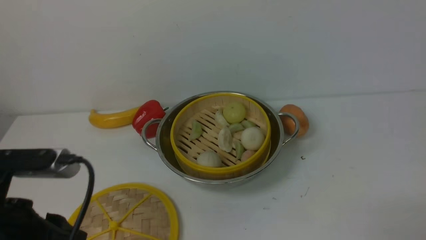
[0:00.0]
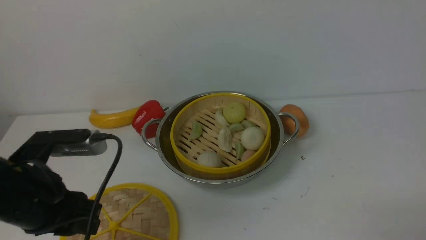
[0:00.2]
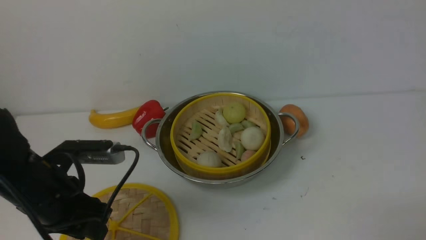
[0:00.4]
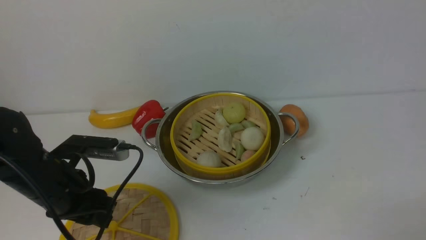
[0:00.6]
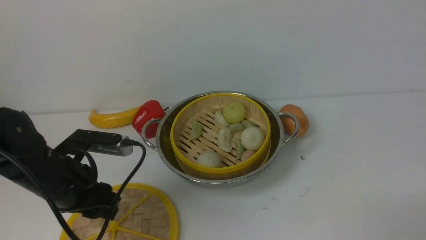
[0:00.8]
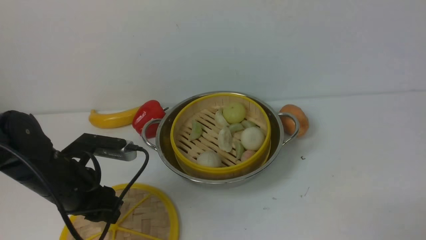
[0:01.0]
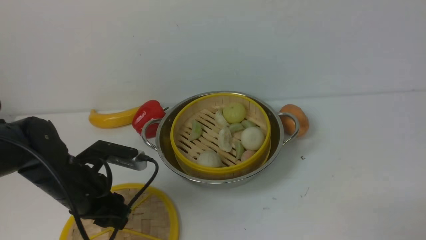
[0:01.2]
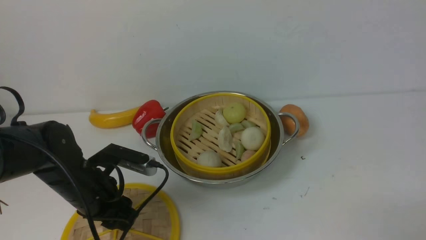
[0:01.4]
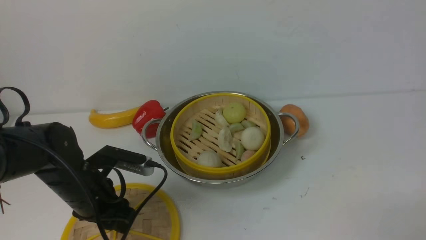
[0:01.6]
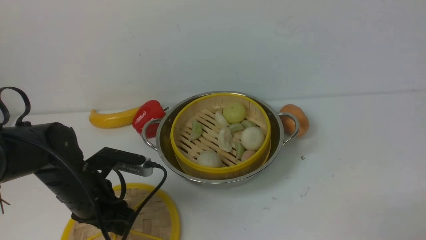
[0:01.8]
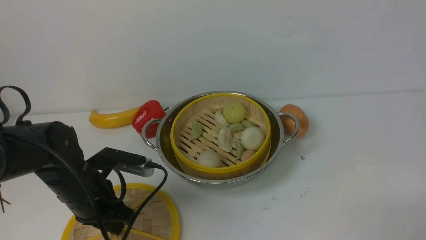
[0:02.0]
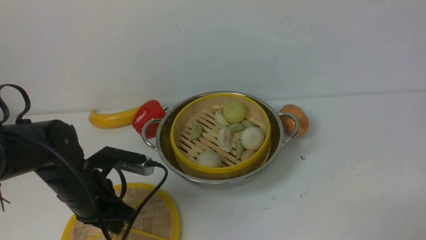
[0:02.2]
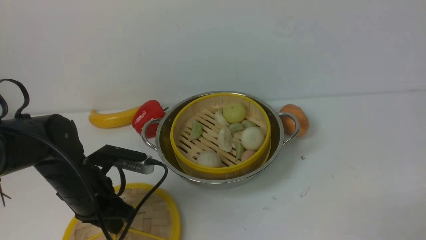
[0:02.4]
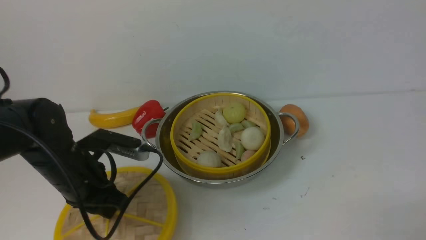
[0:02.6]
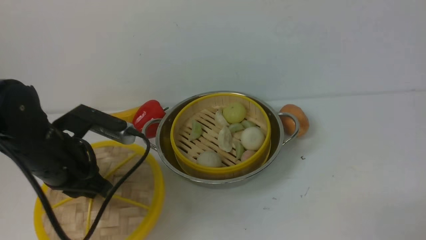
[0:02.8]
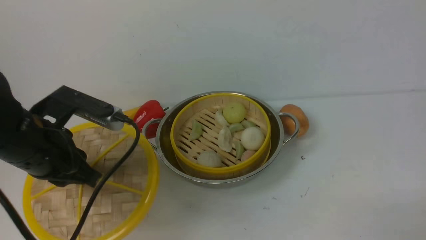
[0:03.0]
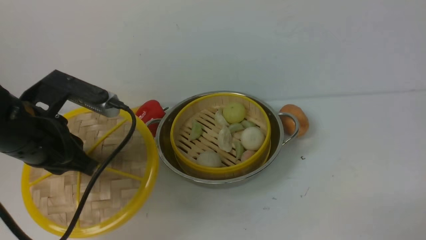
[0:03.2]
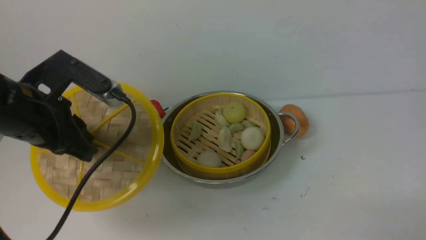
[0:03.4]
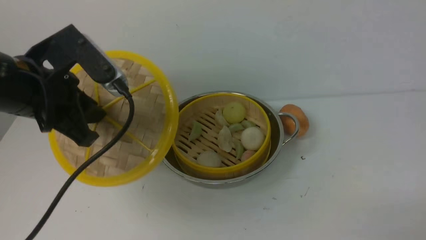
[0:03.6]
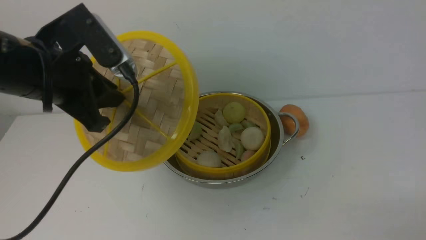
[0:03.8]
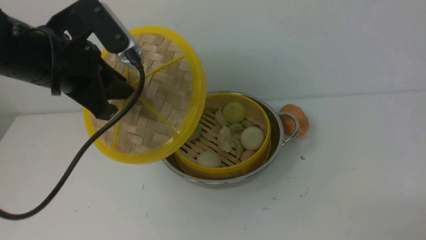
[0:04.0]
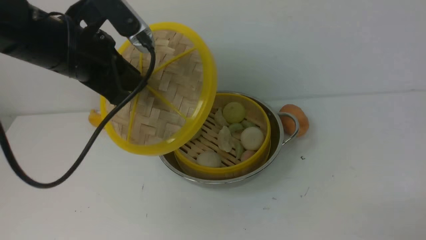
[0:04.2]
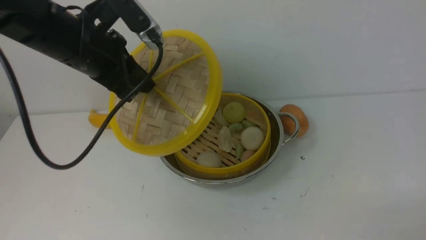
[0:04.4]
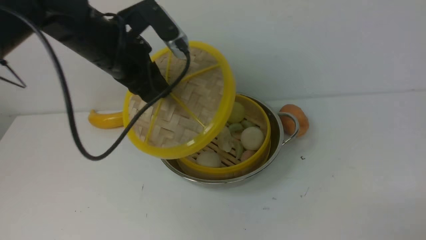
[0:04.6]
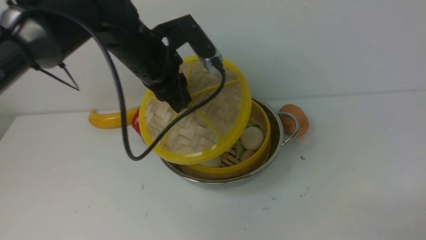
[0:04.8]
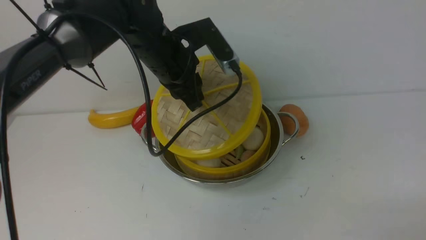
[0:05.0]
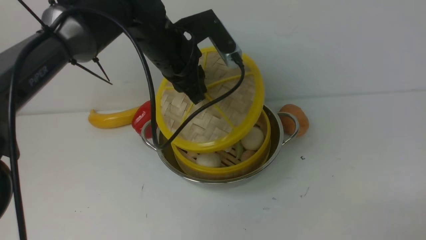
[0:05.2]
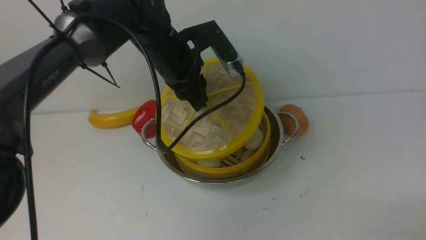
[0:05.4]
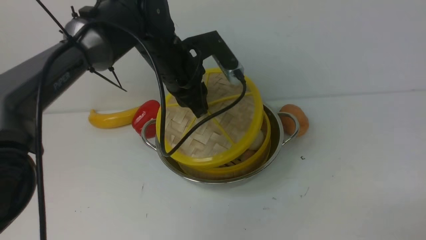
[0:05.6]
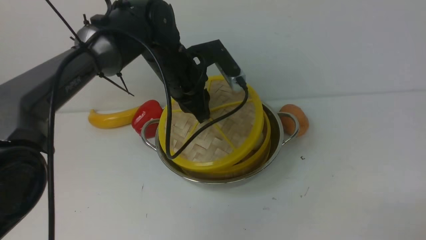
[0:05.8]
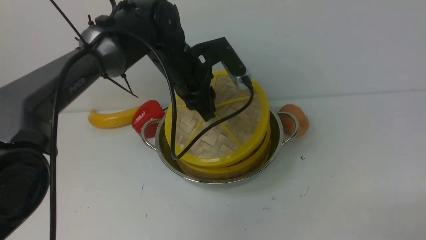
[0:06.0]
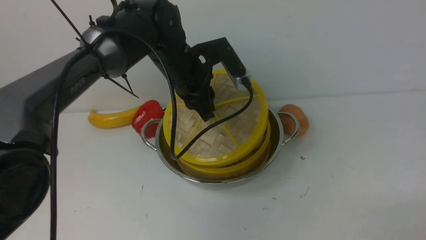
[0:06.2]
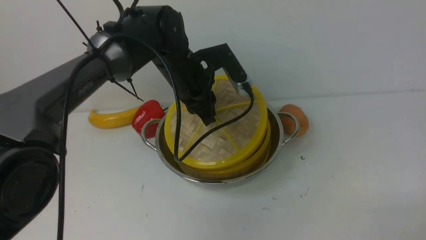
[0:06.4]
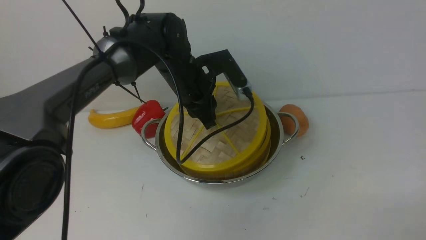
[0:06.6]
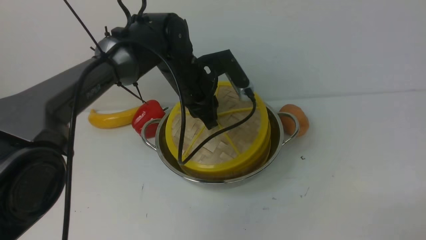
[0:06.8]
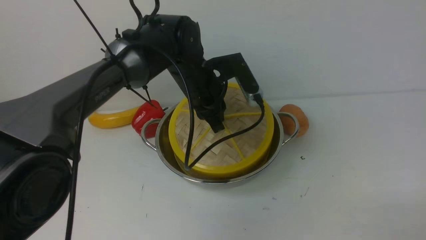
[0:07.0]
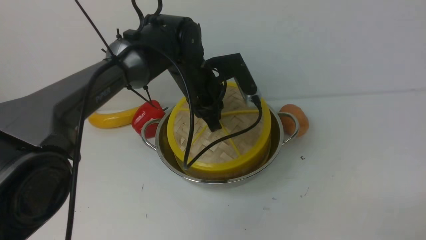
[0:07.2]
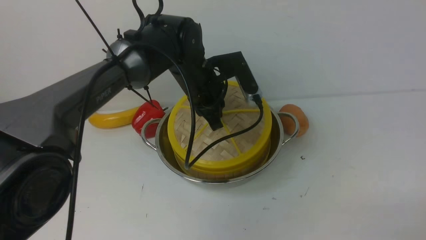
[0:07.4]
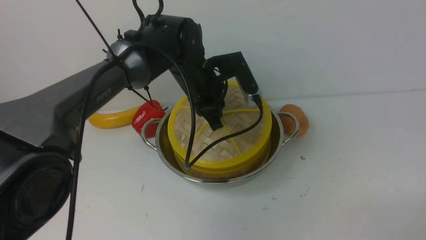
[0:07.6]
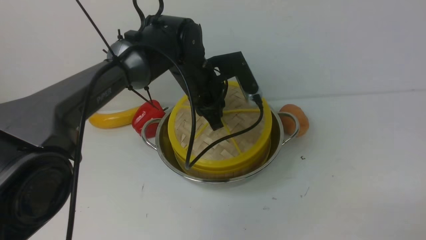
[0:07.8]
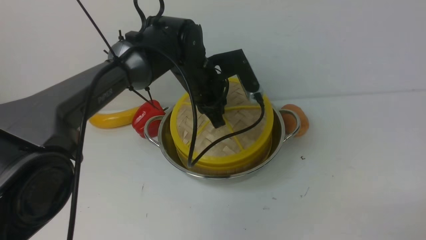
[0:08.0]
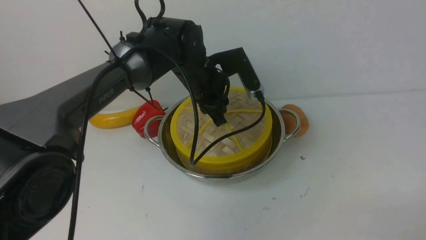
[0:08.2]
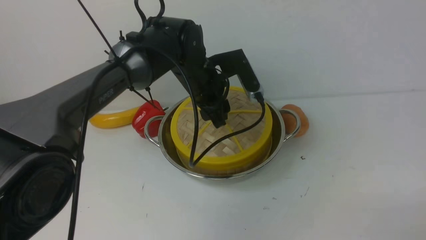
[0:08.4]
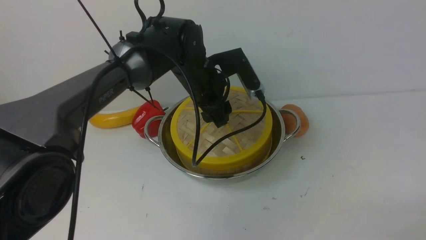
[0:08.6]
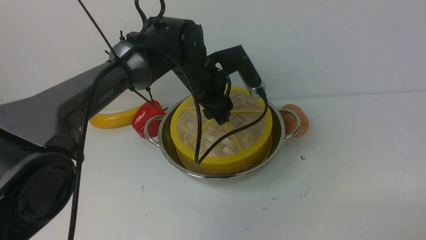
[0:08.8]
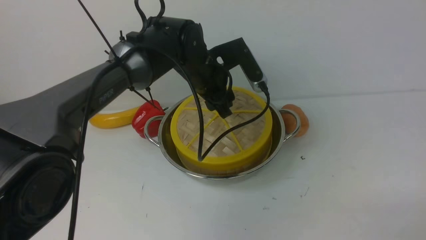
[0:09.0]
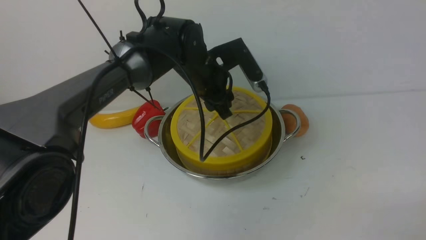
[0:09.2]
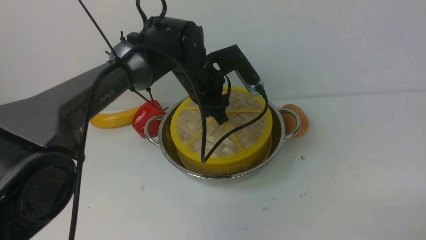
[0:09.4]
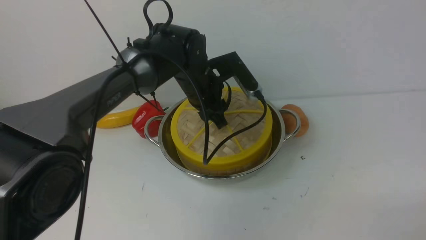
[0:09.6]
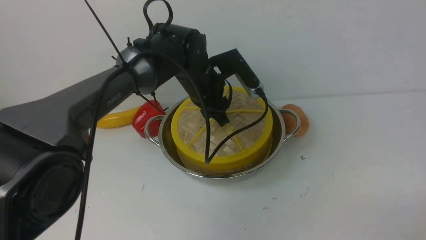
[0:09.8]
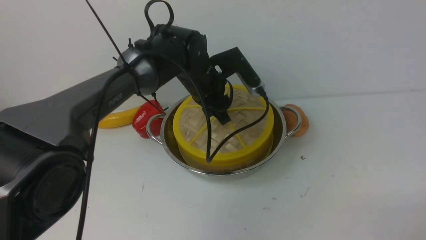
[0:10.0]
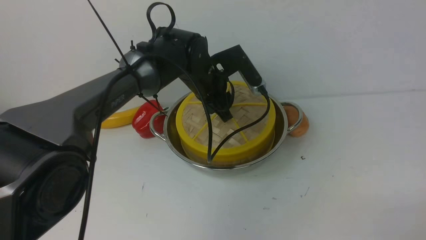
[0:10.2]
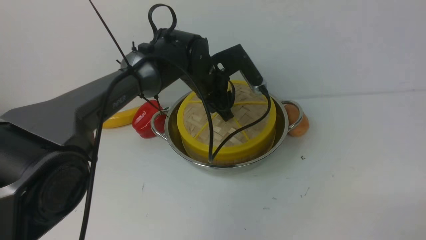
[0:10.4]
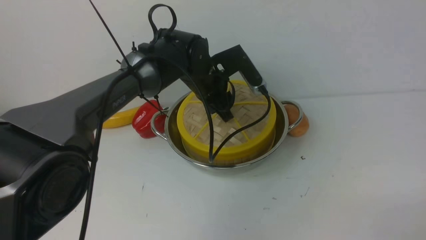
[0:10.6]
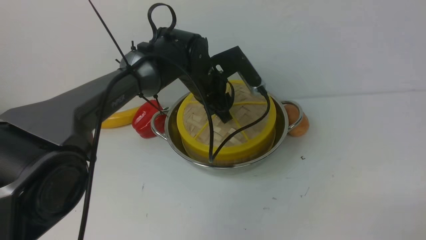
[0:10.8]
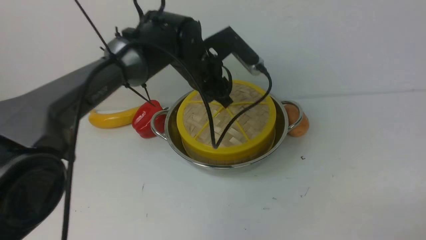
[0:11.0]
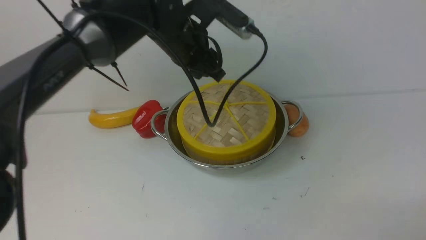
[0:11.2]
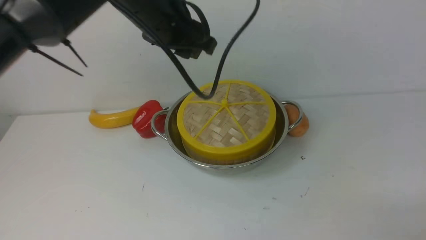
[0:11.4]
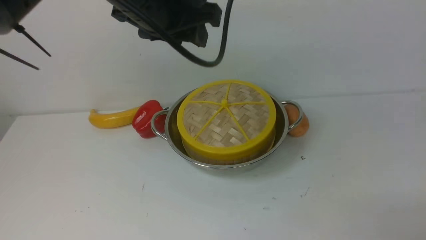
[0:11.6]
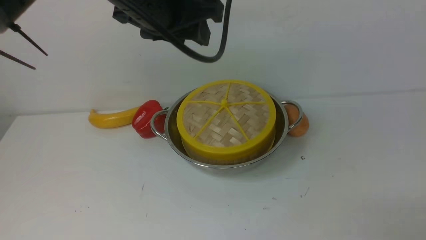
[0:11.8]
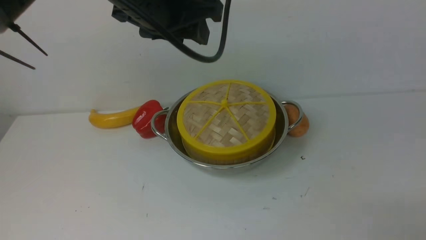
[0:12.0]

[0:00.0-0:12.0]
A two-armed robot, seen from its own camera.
Task of the whole recording: place the steamer in the pot on the white table, and put the lid on the steamer.
Step, 0:00.0 to 0:02.6: use the left arm to lift the lid of the steamer.
Step, 0:02.8 to 0:11.6: use the left arm to place the steamer lid on the steamer.
0:00.0 to 0:01.6: The left gripper goes roughly 20 cm forward and downward.
0:01.6 to 0:03.0: The left gripper is displaced upward by about 15 cm, and closes up.
0:03.0 to 0:04.4: The left gripper shifts some 15 cm forward, upward and to the right.
0:04.4 to 0:06.0: The left gripper moves to the right, downward and forward, roughly 15 cm.
0:06.0 to 0:07.6: The grippers make only small movements.
0:07.6 to 0:09.0: The left gripper opens.
0:09.0 to 0:10.4: There are only small adjustments of the grippers.
0:10.4 to 0:12.0: The left gripper moves upward and backward, some 20 cm.

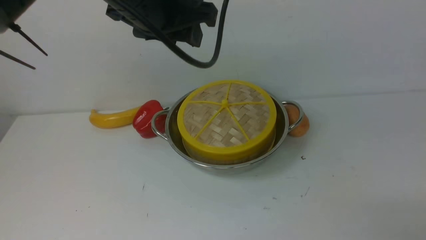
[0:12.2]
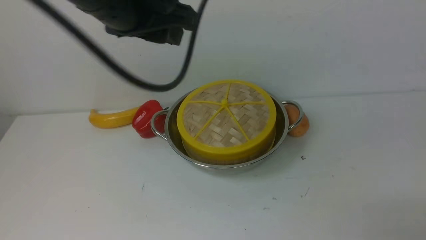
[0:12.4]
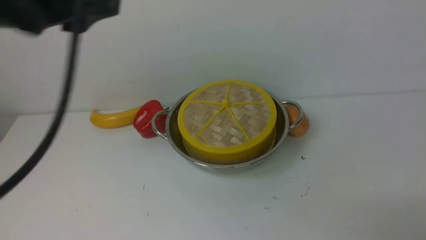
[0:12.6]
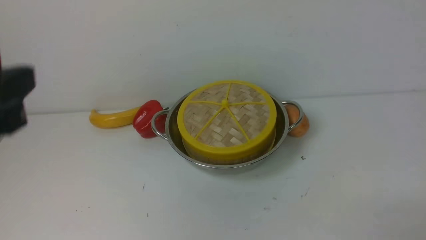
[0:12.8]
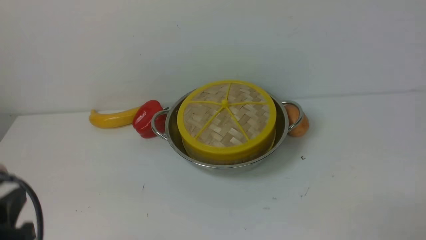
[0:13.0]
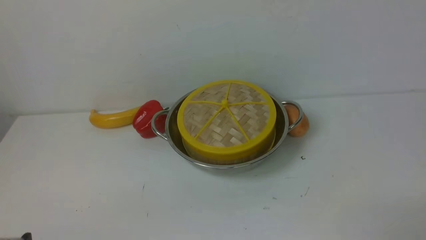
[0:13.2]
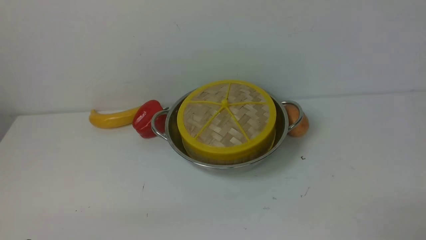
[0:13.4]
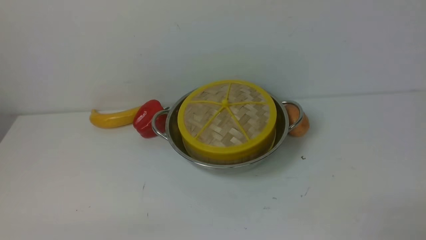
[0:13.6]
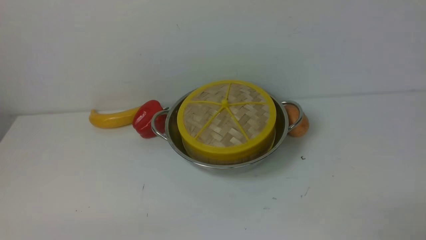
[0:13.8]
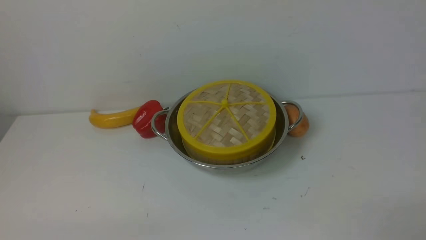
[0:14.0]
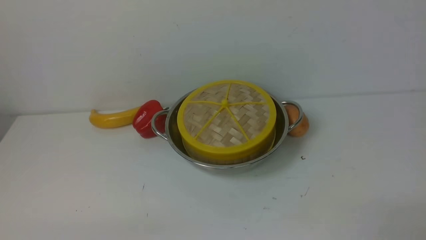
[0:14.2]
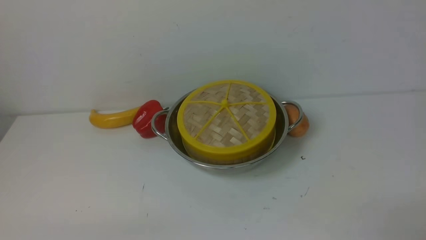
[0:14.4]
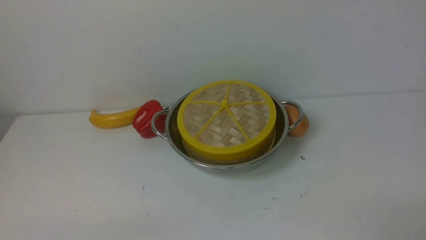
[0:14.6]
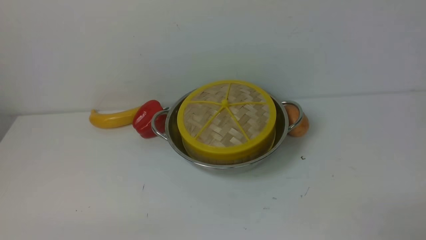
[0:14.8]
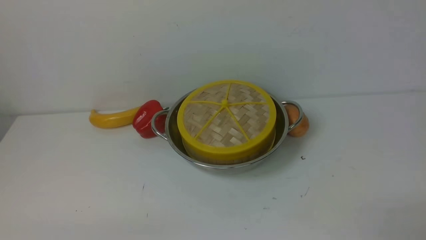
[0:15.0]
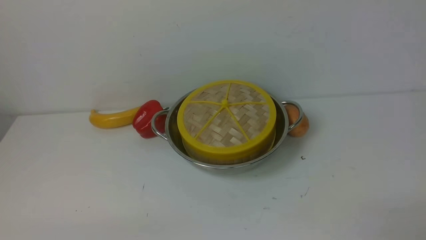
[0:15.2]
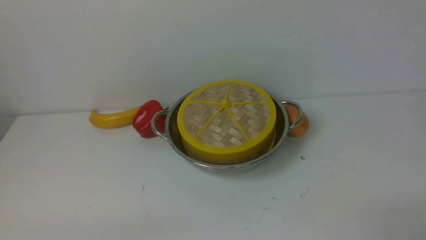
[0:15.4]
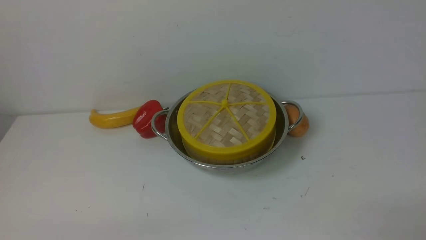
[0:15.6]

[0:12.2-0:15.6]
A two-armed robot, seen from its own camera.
Task of the whole recording: place the steamer in the pot on the white table, and put the lid on the steamer.
0:12.2 to 0:13.8: The left gripper goes some 40 cm backward, downward and to the left.
0:13.8 to 0:15.6: Both grippers stay put.

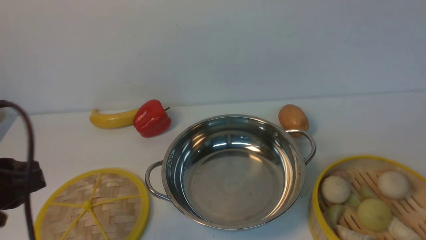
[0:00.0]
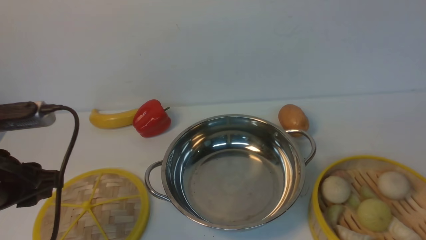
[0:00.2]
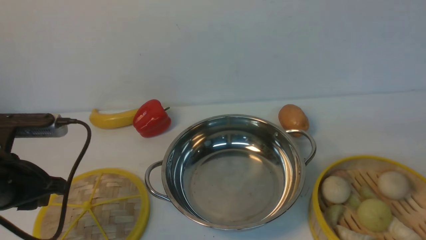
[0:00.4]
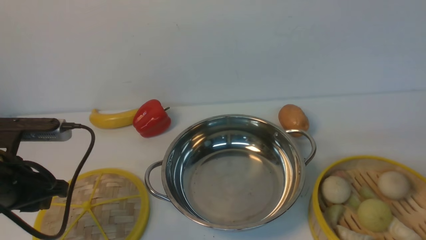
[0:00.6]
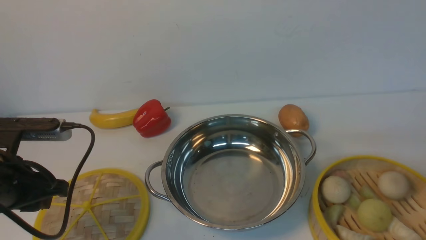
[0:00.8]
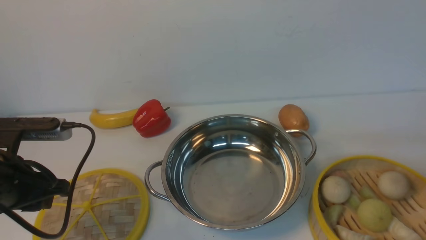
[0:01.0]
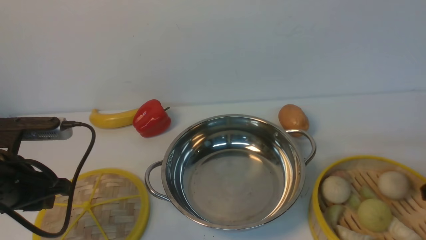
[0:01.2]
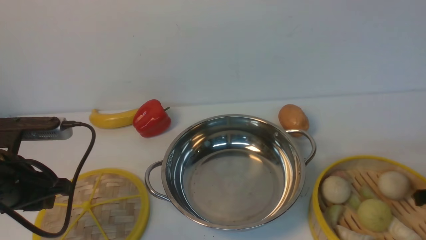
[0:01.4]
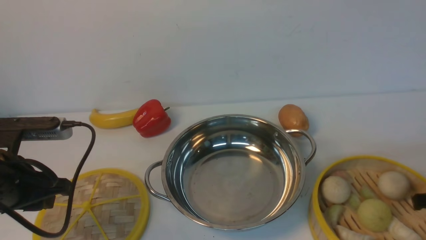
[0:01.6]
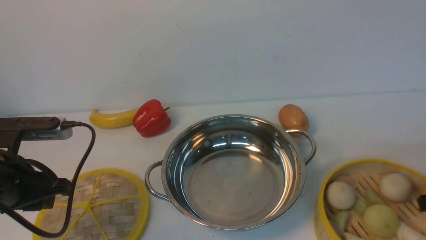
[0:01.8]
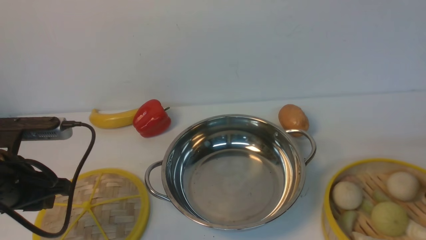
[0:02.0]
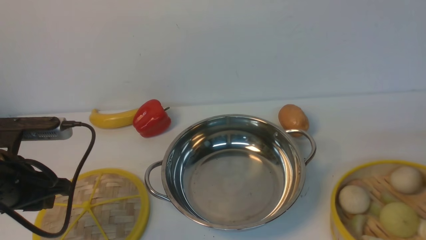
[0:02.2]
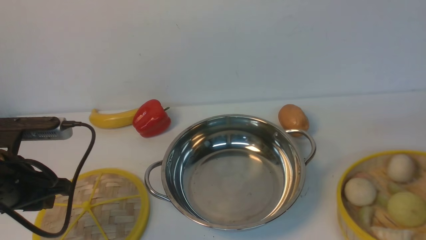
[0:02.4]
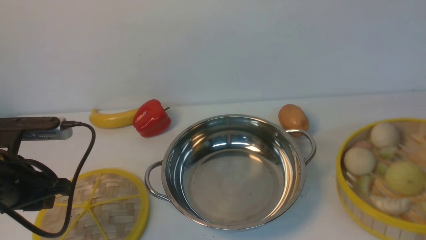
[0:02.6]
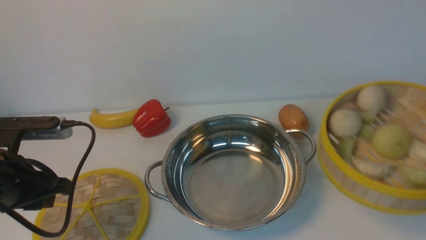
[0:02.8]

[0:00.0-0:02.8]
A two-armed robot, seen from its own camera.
Task of the whole recording: place the steamer in the pot on the white table, and put the lid on the steamer.
Step, 0:00.0 to 0:02.6: use the right arm to lift the steamer closest to it.
0:00.0 to 0:01.4: The left gripper moves forward and downward, some 10 cm.
0:01.4 to 0:02.8: The right gripper heads upward and forward, covering some 15 cm, and closes its fingers.
